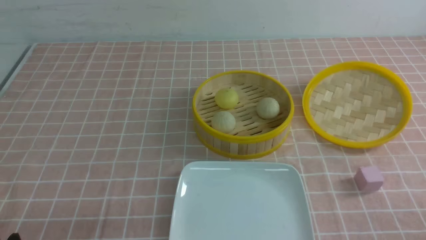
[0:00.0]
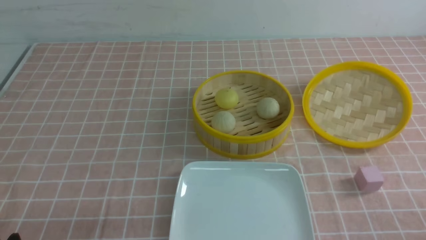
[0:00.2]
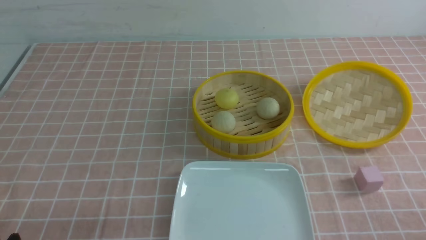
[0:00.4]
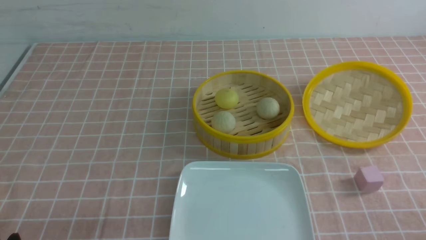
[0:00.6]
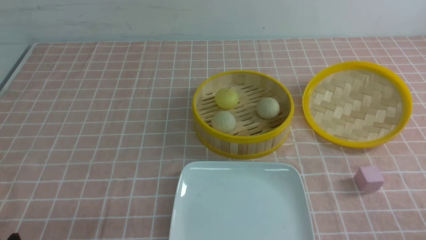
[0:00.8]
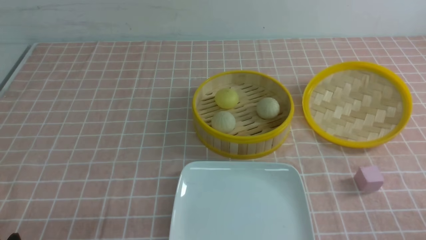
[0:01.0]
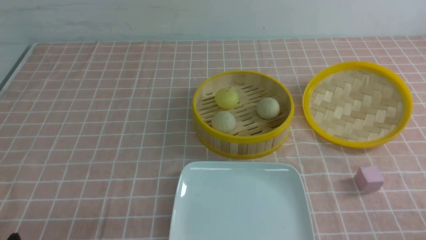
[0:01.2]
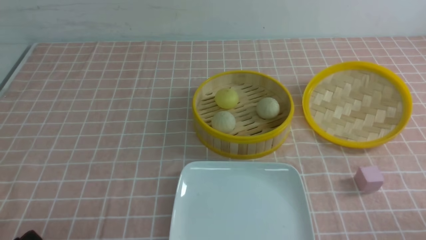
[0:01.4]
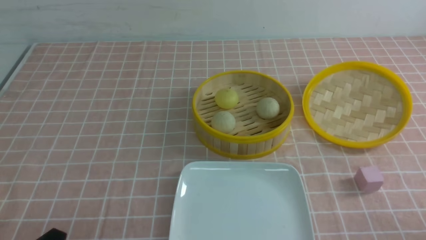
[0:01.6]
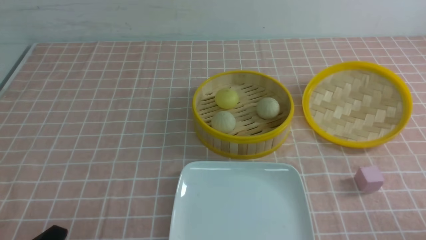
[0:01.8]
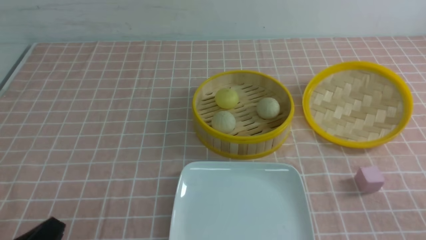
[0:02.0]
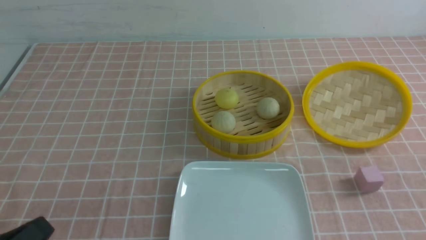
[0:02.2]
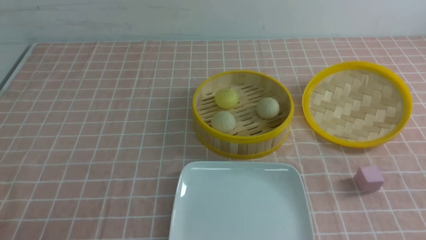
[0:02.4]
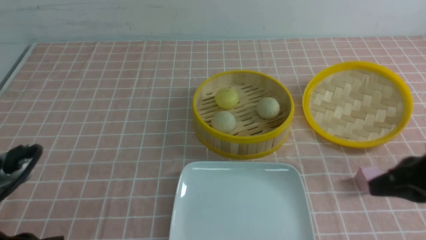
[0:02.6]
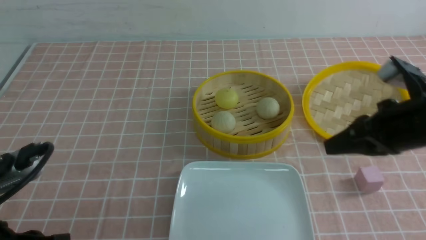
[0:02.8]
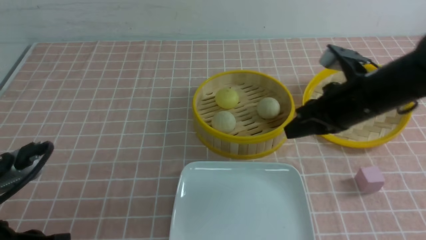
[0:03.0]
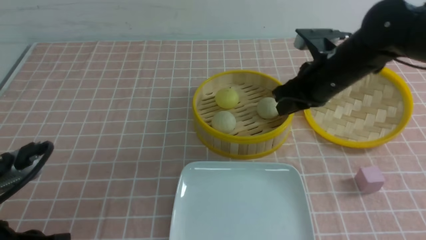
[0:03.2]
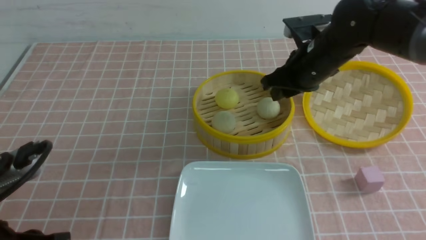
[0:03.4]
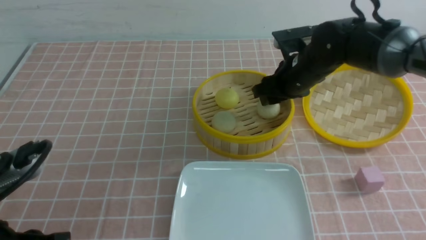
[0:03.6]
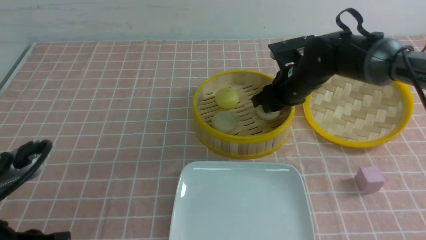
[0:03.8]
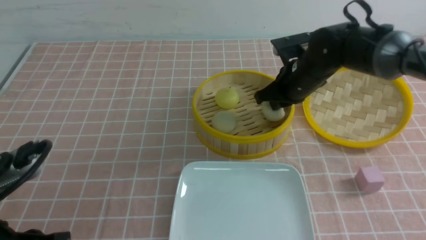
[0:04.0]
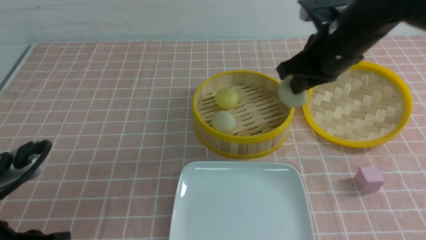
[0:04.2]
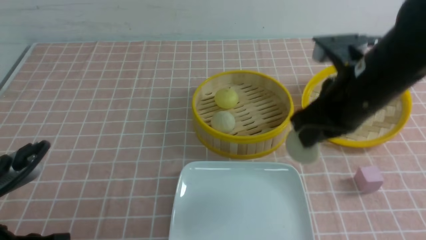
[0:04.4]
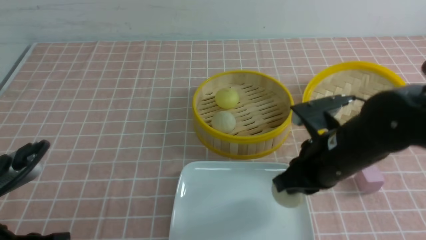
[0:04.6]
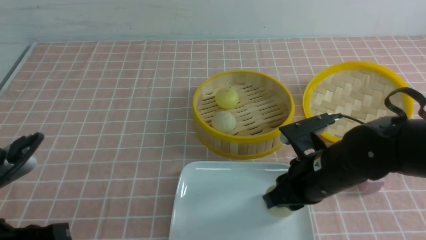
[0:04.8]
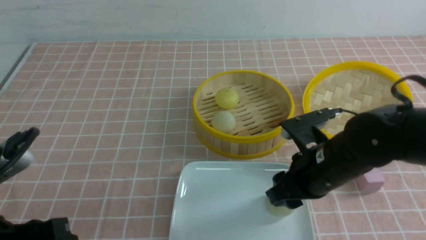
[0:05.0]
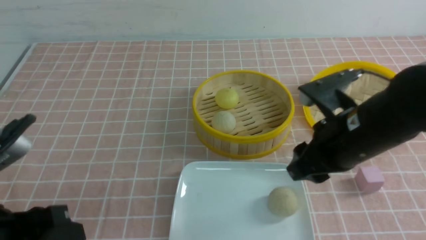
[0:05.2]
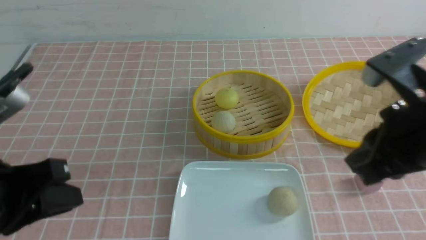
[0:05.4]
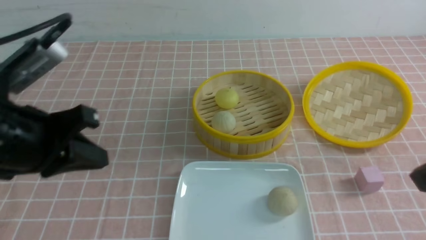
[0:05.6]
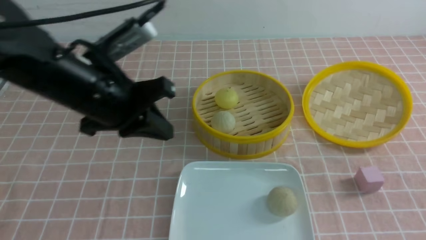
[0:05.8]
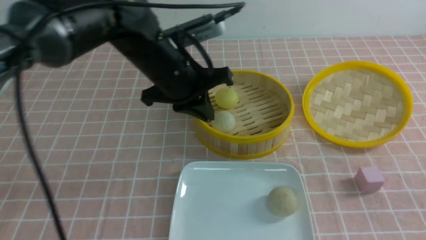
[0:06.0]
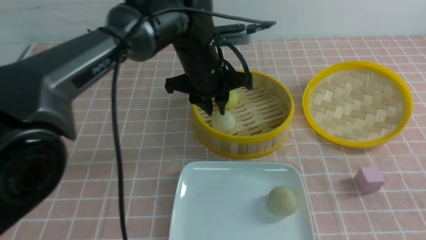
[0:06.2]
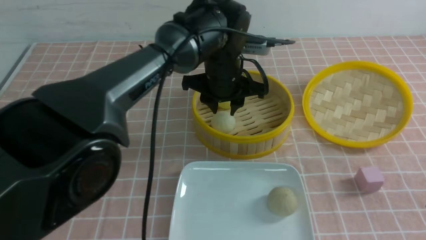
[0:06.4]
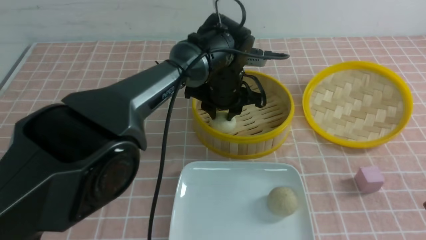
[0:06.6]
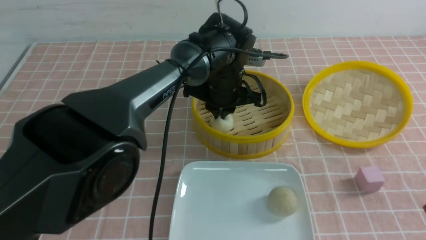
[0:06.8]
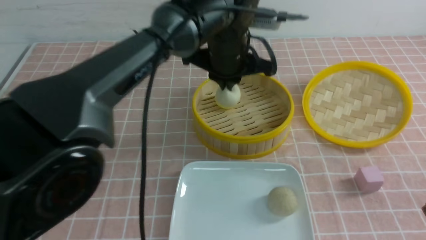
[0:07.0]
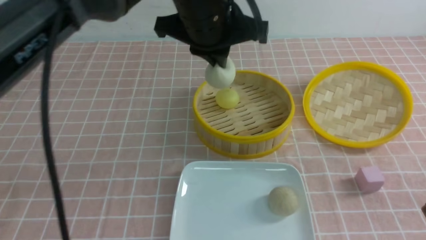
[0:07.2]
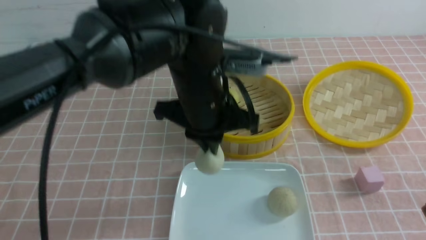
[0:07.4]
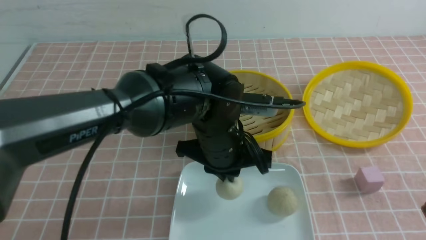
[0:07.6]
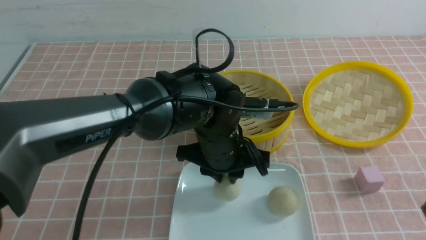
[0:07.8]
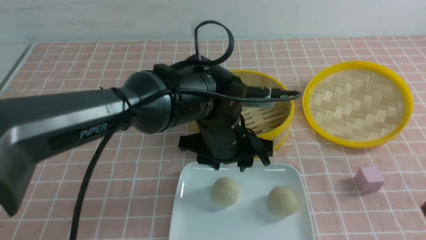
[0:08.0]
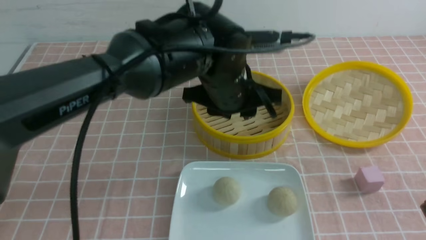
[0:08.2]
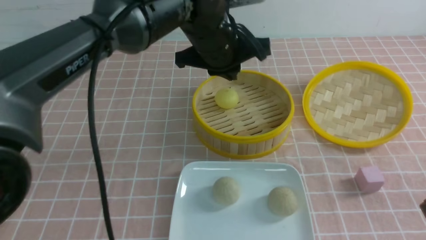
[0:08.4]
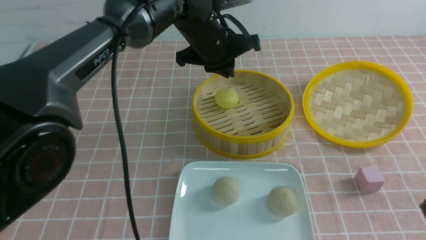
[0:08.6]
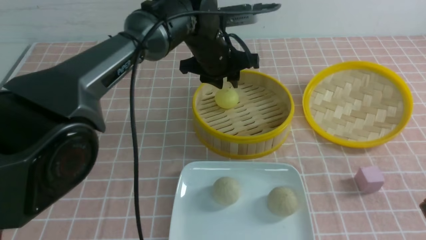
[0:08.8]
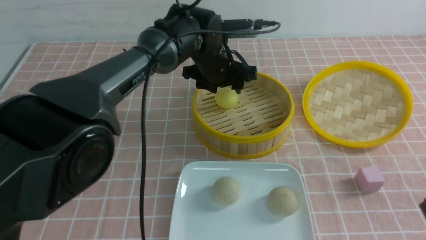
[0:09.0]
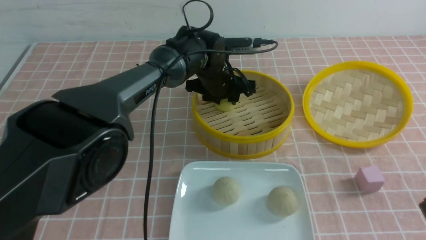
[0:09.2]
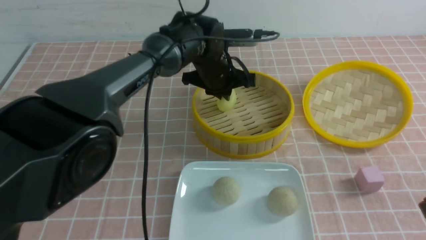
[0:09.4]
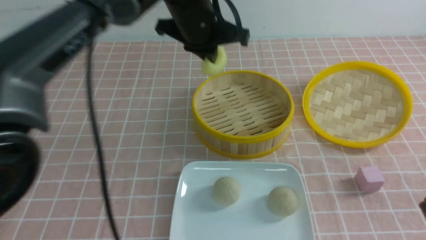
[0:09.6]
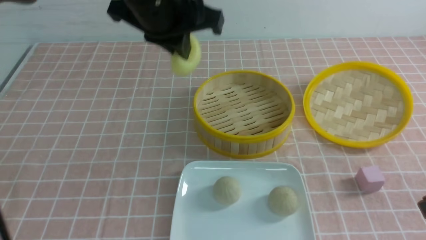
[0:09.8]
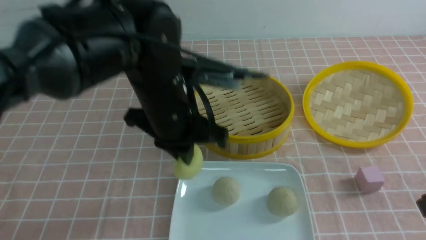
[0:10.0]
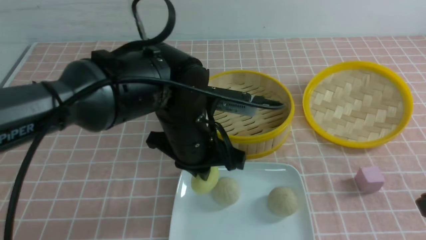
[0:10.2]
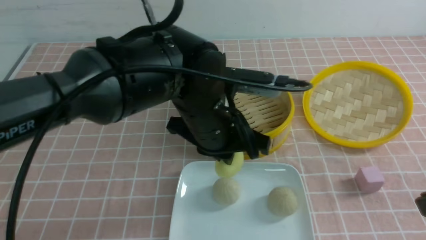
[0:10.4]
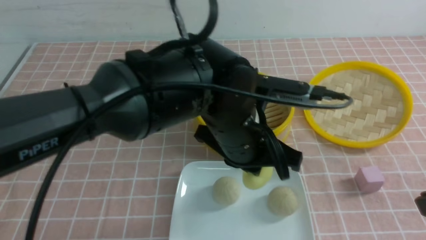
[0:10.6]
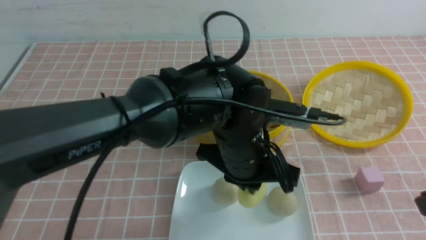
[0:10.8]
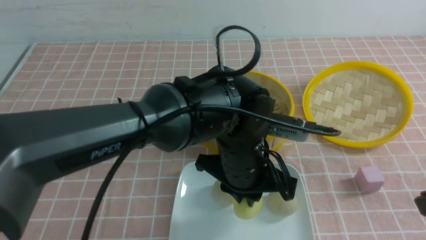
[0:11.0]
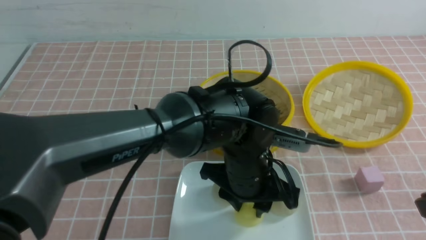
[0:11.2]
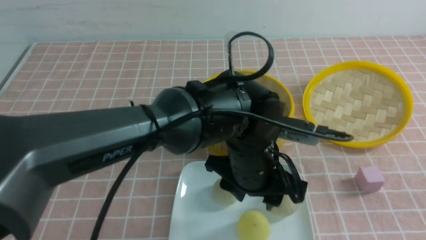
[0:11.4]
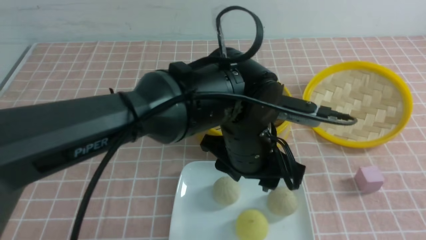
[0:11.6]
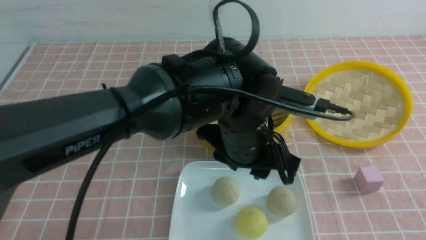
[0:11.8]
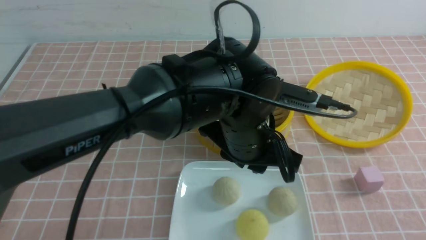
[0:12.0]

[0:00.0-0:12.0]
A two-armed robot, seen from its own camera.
Step, 0:00.0 to 0:03.6: use the right arm to grab the steamed stuffed bun that is closest to it.
Step, 0:03.8 to 0:05.0: use the right arm to put the steamed stuffed bun into the plate.
Step, 0:05.2 to 0:06.8: use the left arm to grab the steamed stuffed bun that is closest to it.
Step, 0:07.0 to 0:08.0: use the left arm to put the steamed stuffed bun into the plate.
Step, 0:08.2 to 0:09.2: use the left arm to grab the steamed stuffed bun that is closest to it.
Step, 0:09.4 to 0:11.4: use the left arm to put the steamed stuffed bun into the plate.
0:01.6 to 0:03.0: The left gripper heads upward, covering approximately 10 cm, and closes up. The right gripper moves forward and to the left, approximately 30 cm, and closes up.
0:03.0 to 0:04.4: The right gripper goes forward and returns, approximately 10 cm each way, and opens, then closes again.
0:04.4 to 0:06.0: The left gripper heads forward and to the right, covering about 30 cm; the right gripper moves backward and to the right, about 25 cm, and opens, then closes again.
0:06.0 to 0:07.6: The left gripper shifts roughly 10 cm to the right, downward and backward, and opens and closes again.
0:07.6 to 0:09.0: The left gripper heads forward, covering about 15 cm, and opens up.
0:09.0 to 0:10.4: The left gripper is displaced backward by approximately 20 cm, and closes.
0:10.4 to 0:12.0: The right gripper is displaced backward by about 5 cm, while the left gripper opens up.

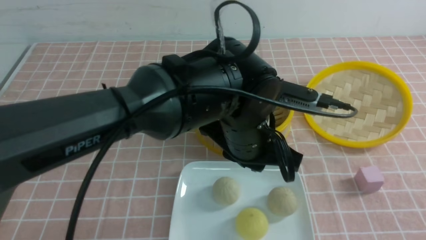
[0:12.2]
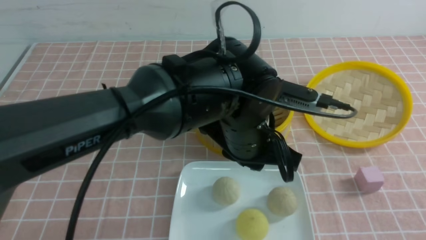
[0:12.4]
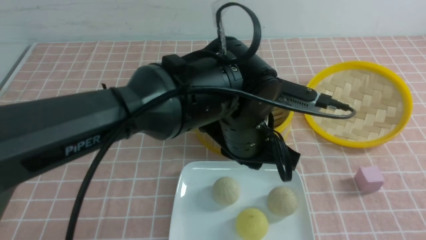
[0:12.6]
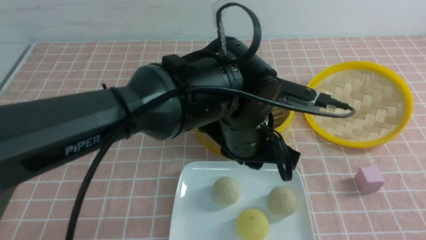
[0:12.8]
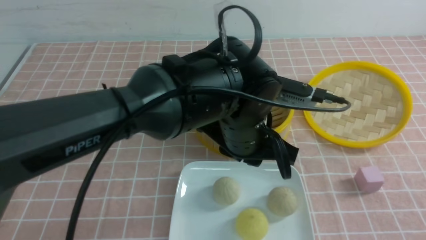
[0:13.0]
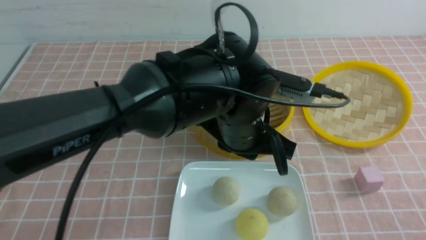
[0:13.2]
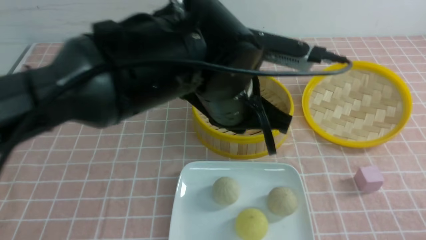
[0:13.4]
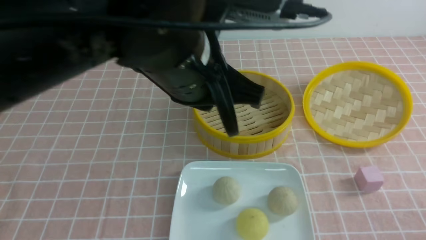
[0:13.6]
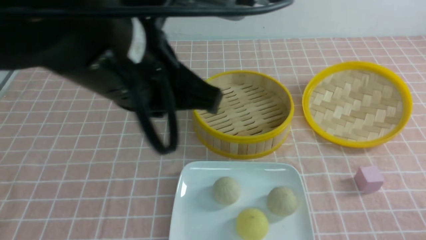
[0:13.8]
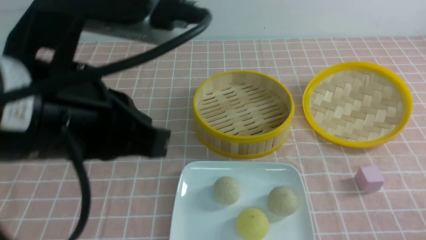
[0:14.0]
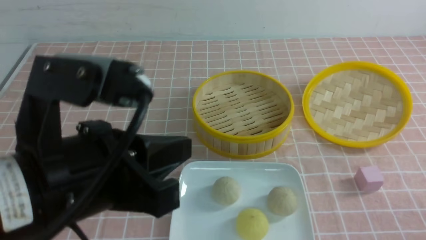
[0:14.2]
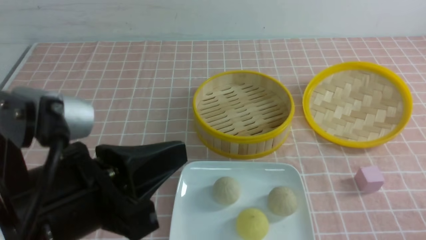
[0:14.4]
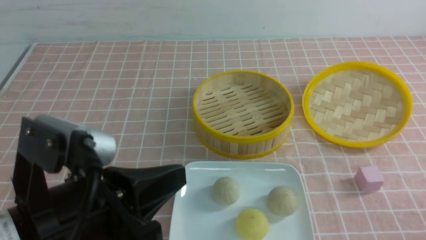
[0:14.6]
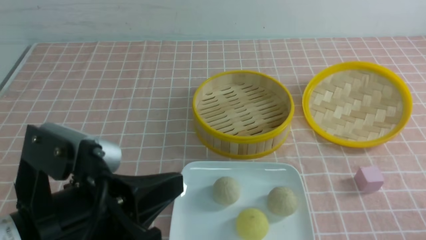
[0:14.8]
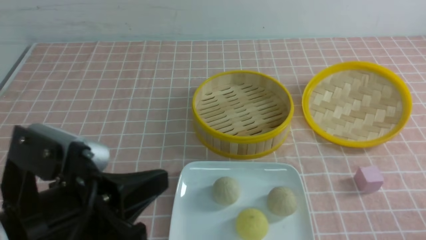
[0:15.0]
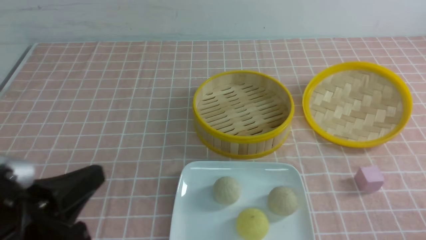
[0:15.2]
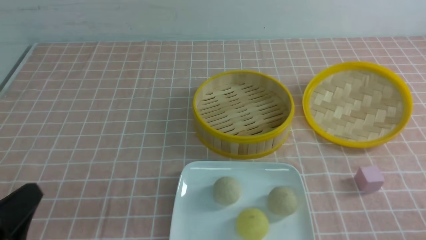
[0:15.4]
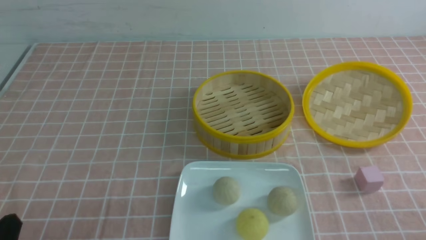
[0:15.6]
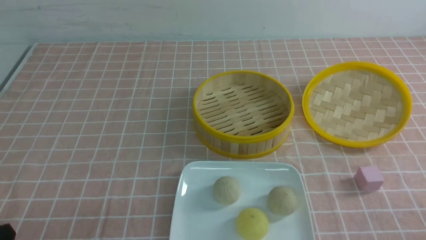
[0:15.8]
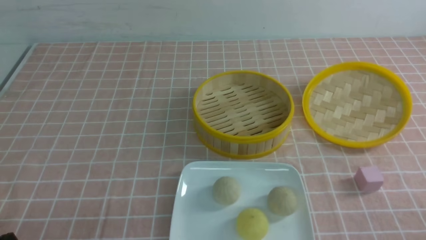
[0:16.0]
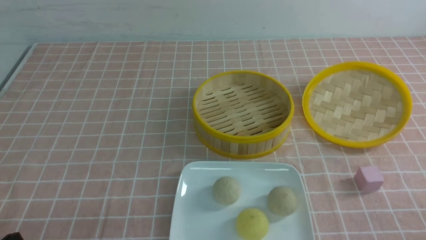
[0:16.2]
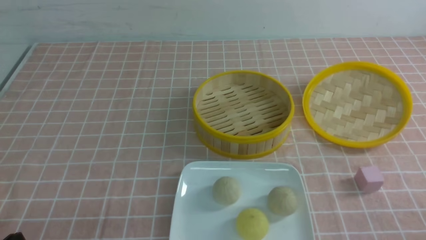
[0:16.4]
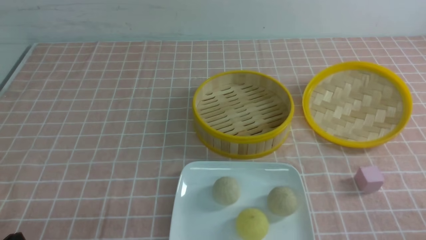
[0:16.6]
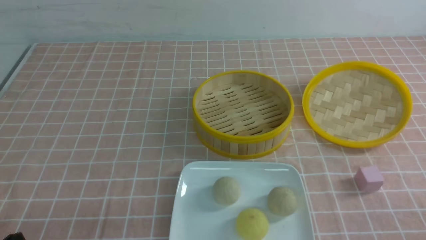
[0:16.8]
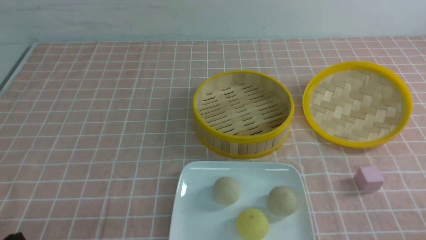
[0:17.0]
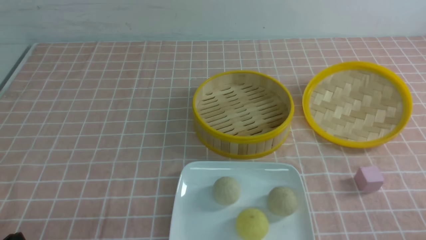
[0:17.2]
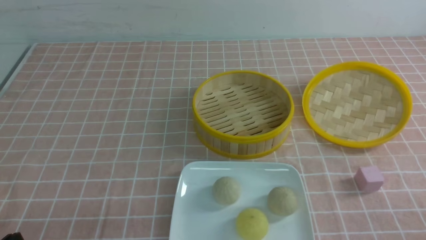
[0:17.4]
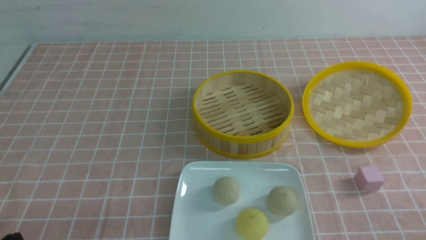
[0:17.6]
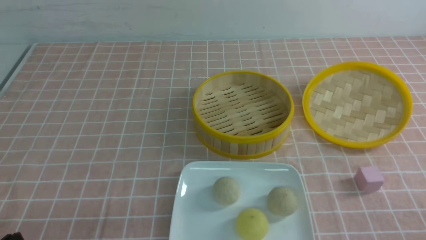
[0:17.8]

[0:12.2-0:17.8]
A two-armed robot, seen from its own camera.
0:12.2 to 0:13.6: The right gripper travels downward by about 10 cm. Meanwhile the left gripper goes roughly 15 cm upward and to the left, and closes.
0:13.6 to 0:15.0: The left gripper shifts approximately 20 cm to the left, backward and downward.
0:15.0 to 0:16.4: The left gripper shifts about 15 cm downward and to the left.
0:16.4 to 0:17.8: Both grippers stay about where they are.
